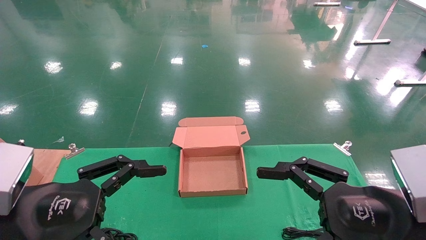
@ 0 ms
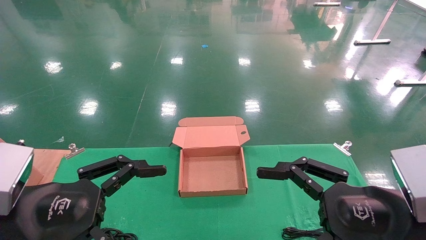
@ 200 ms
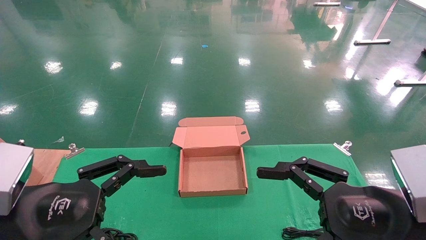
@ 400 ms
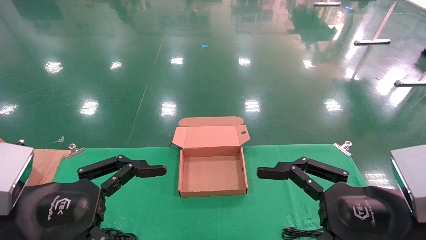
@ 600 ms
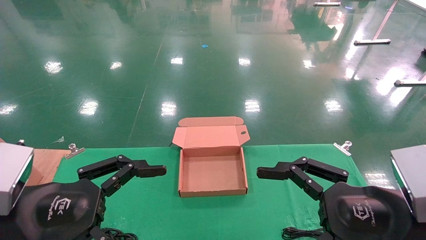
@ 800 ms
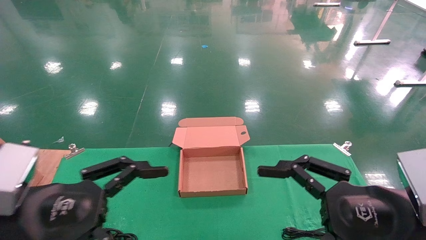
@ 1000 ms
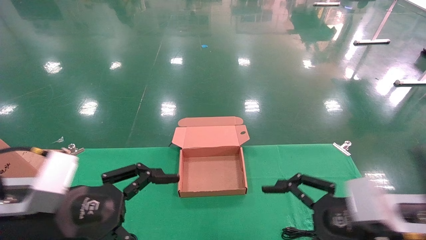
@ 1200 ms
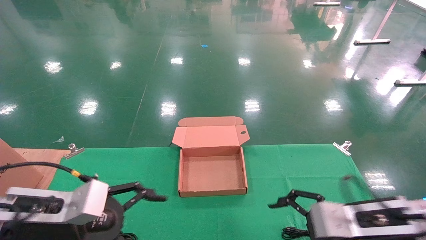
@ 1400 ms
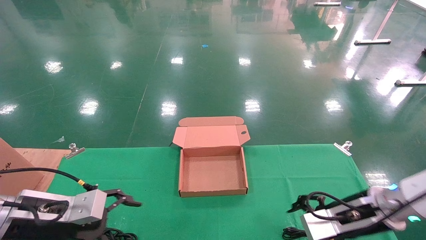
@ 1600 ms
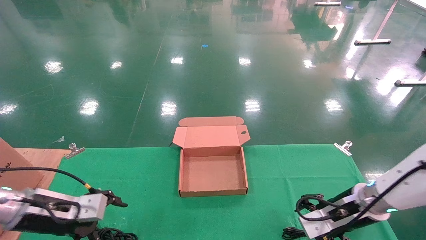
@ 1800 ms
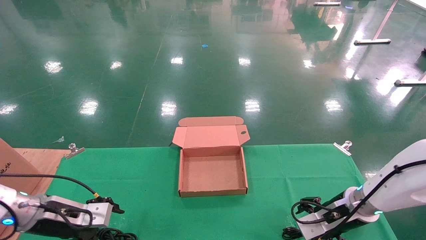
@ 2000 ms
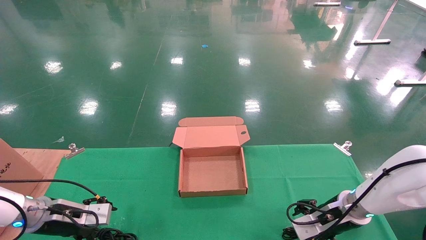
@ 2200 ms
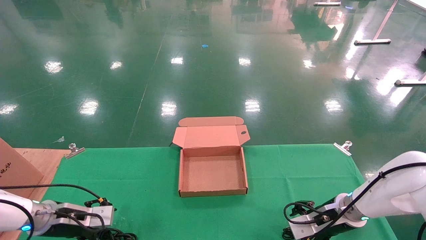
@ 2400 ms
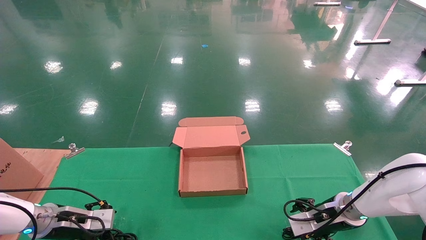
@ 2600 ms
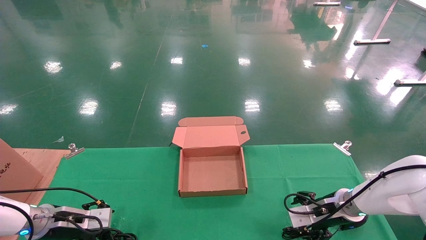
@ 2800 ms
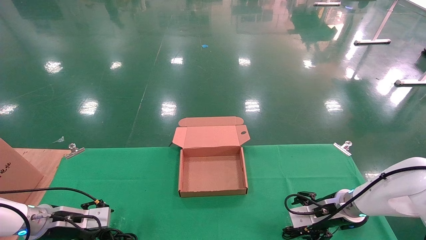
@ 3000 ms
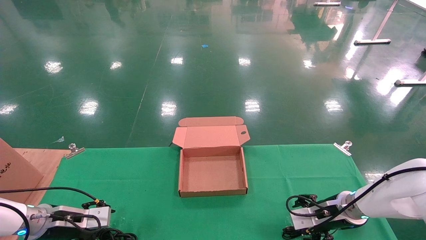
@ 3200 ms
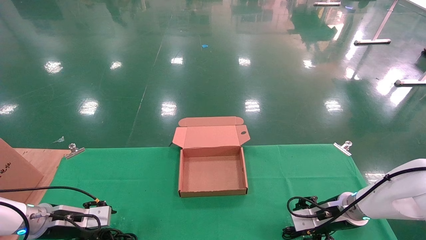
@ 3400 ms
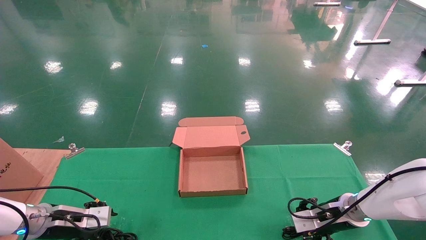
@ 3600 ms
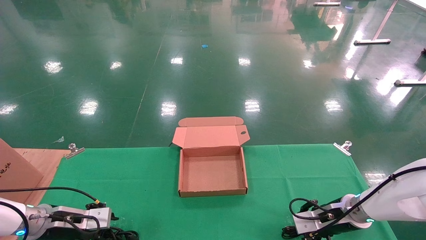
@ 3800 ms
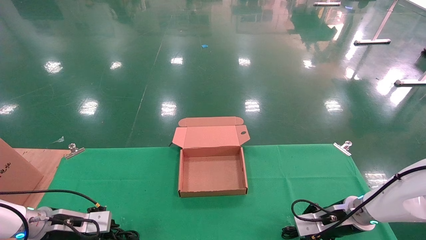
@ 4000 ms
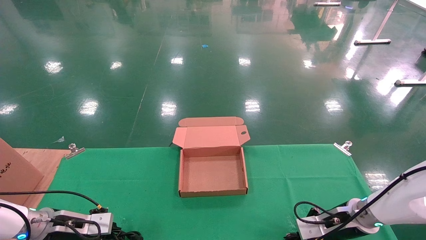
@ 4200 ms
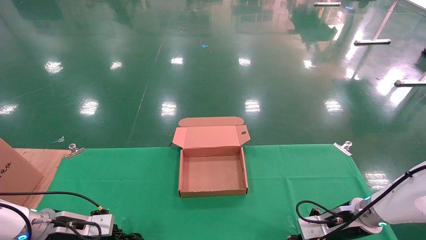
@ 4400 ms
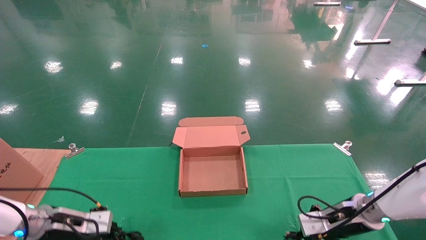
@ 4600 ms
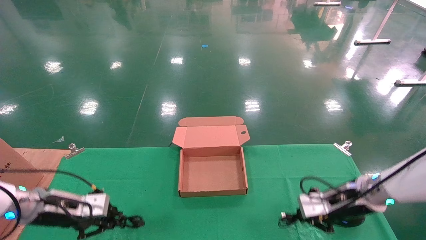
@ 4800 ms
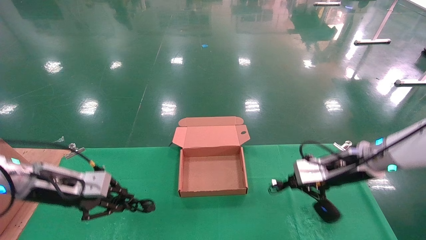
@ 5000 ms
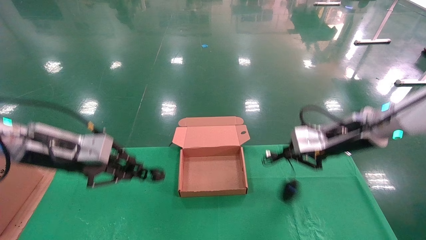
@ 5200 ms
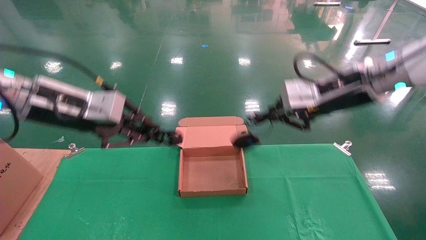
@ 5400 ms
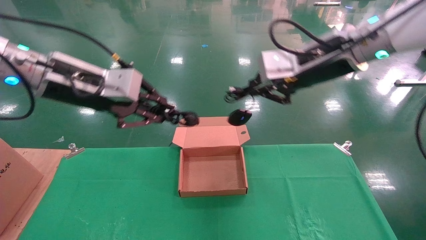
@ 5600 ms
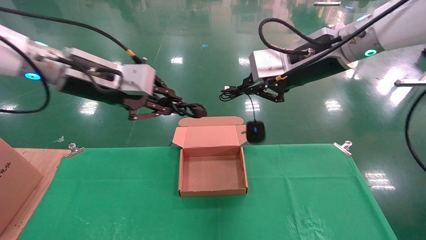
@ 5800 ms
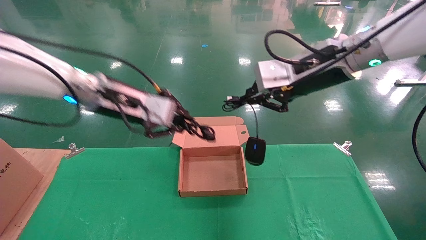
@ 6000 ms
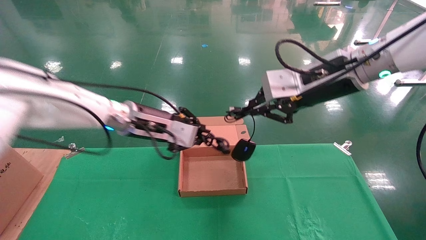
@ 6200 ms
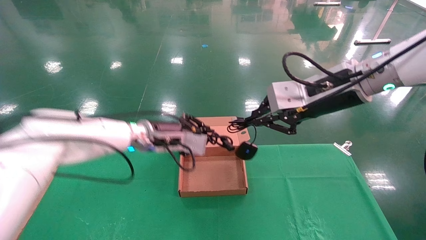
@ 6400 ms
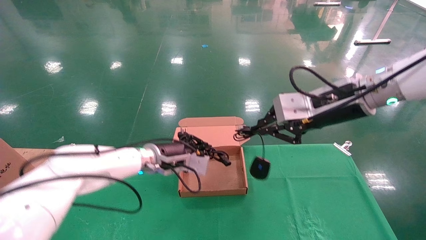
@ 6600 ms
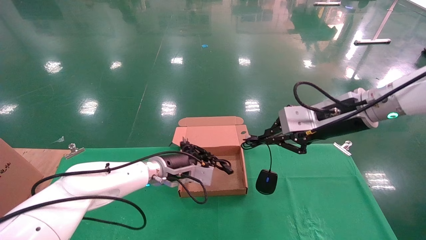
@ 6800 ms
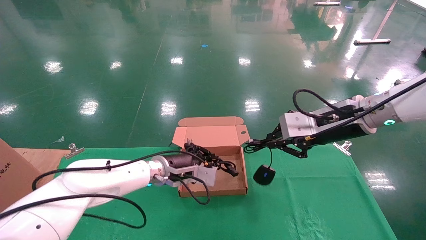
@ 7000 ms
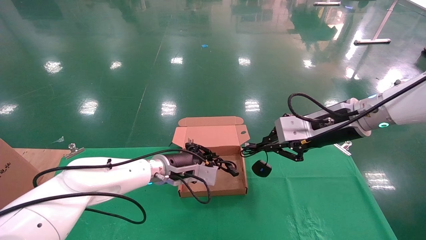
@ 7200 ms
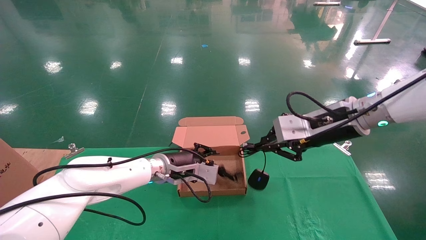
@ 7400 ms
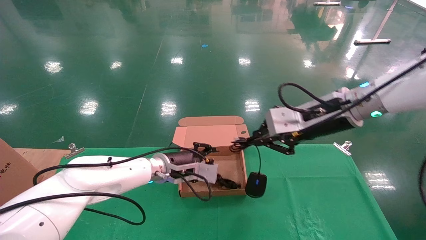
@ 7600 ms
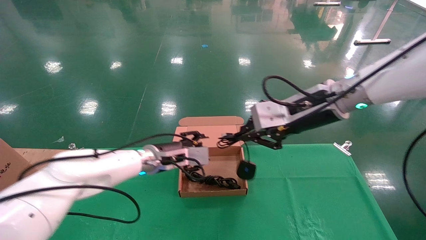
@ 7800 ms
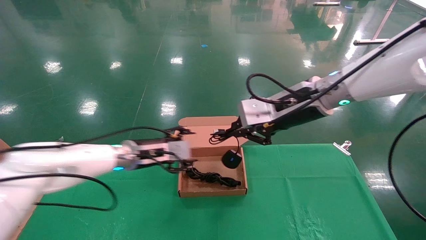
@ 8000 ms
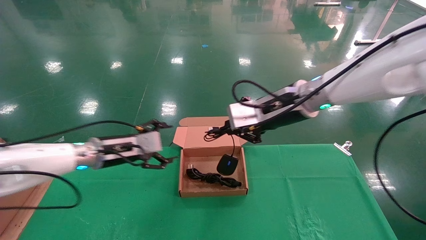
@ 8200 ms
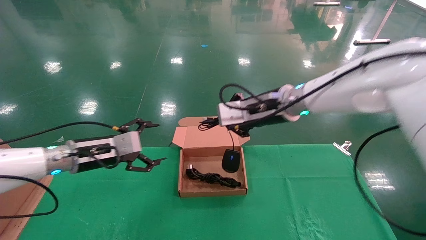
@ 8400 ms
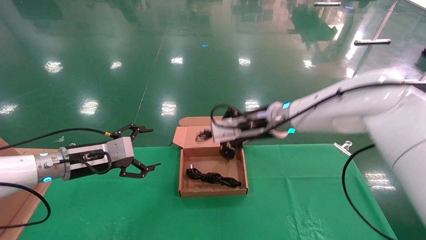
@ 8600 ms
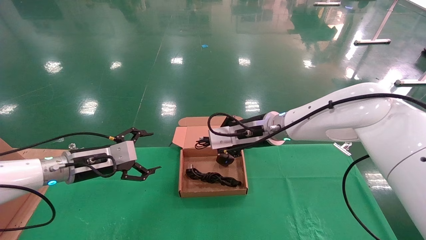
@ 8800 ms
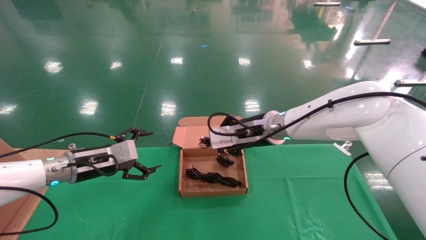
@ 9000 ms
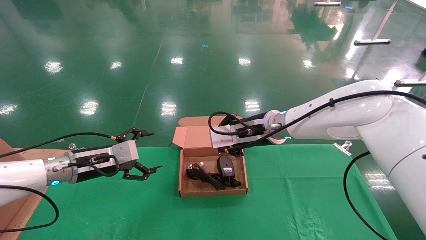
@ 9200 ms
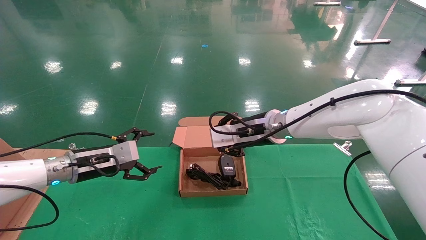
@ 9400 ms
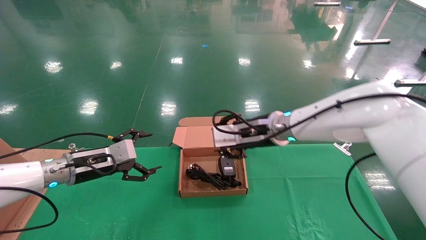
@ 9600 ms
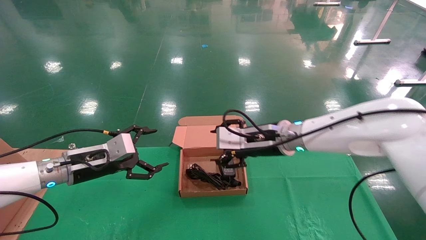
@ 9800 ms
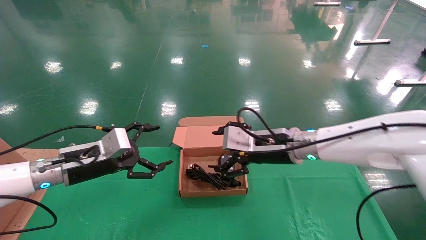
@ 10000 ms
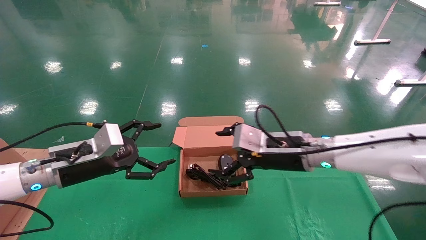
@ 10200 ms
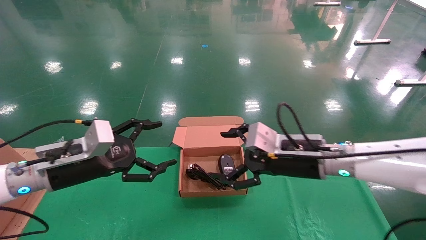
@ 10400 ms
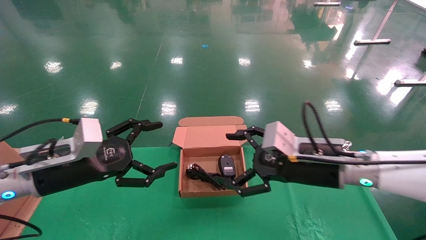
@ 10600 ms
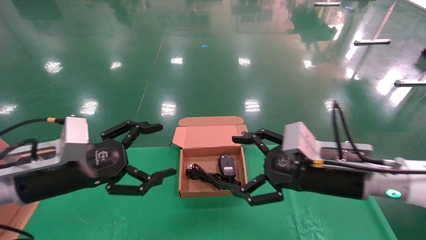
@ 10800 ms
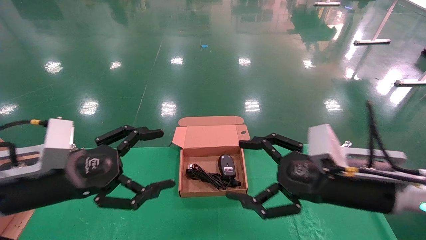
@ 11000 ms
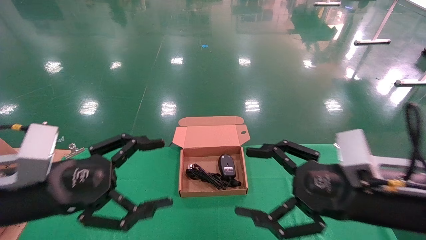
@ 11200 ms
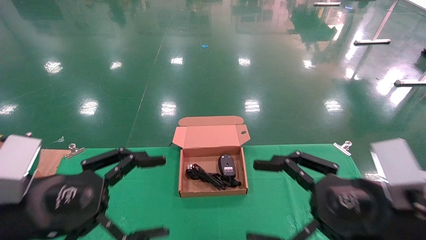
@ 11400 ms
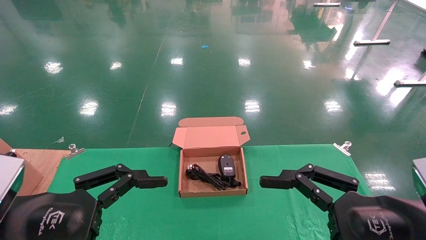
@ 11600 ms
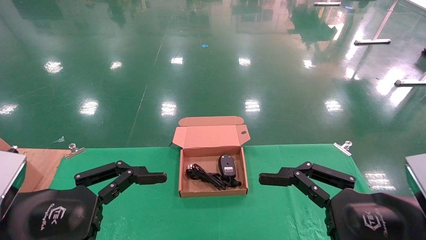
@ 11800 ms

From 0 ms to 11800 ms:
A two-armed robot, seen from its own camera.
Step, from 1600 ms to 4800 ms: Grab and lift both the mouse and power cord from the accessory packaging area at the same time.
Step, from 5000 ms to 10200 ms: Place the mouse and power cord into the box.
From 0 ms to 1400 ms: The grippers both shift forward and downward by roughly 10 cm.
From 1400 ms to 3000 ms: The left gripper goes roughly 20 cm forward, downward and to the left. The right gripper shifts about 15 cm forward and downward.
From 3000 ms to 4400 ms: The left gripper closes up. Meanwhile the right gripper closes its fingers.
From 4400 ms to 6000 ms: The left gripper heads upward and to the right, covering some 35 cm, while the right gripper moves upward, some 30 cm.
From 6000 ms to 7400 ms: The right gripper heads downward, covering about 10 cm; the left gripper travels downward, forward and to the right by roughly 20 cm.
From 7400 ms to 8800 ms: The right gripper shifts some 15 cm to the left and forward. Meanwhile the left gripper is displaced to the left by some 20 cm, and opens.
From 8800 ms to 10400 ms: The left gripper is displaced backward by about 10 cm. The right gripper travels backward and to the right by some 10 cm, and opens its fingers.
From 10400 ms to 11800 ms: The left gripper shifts approximately 15 cm backward, while the right gripper moves backward and to the right, approximately 20 cm.

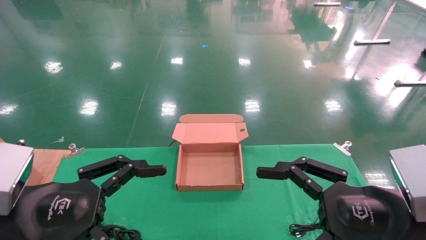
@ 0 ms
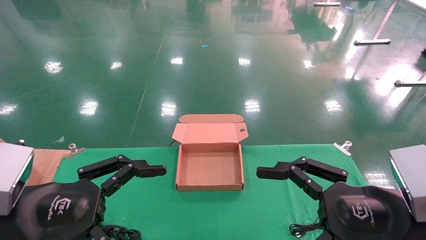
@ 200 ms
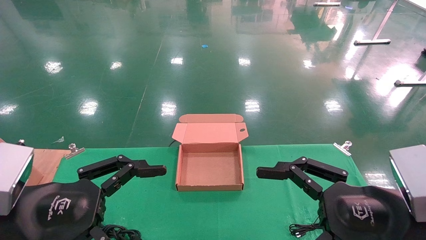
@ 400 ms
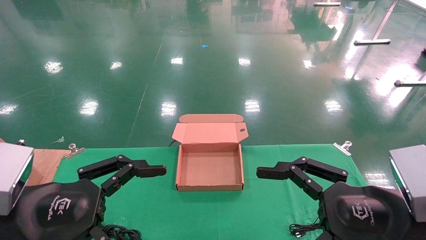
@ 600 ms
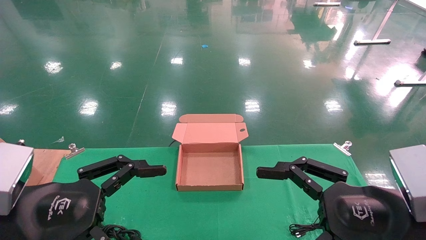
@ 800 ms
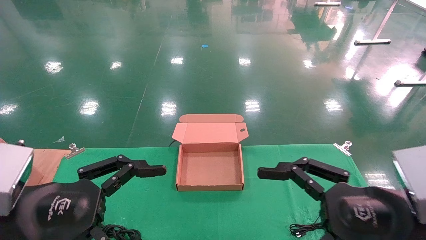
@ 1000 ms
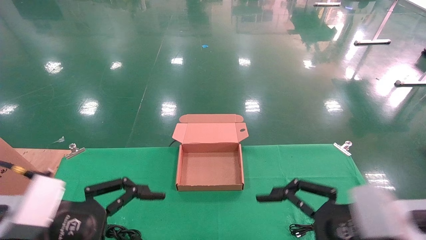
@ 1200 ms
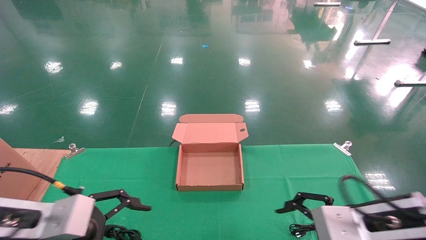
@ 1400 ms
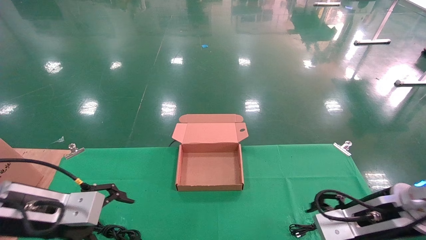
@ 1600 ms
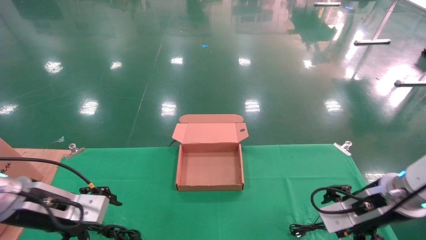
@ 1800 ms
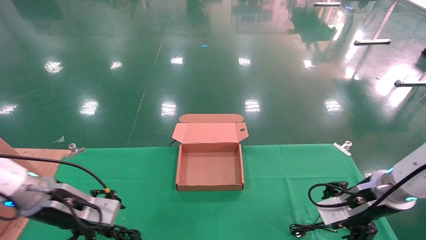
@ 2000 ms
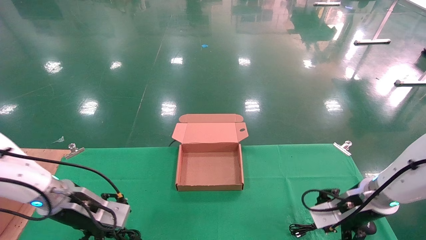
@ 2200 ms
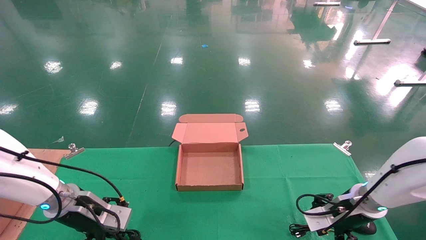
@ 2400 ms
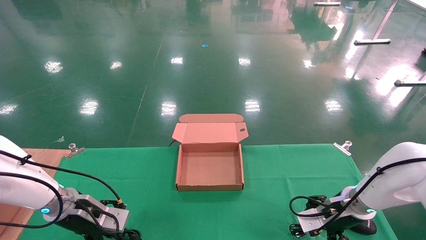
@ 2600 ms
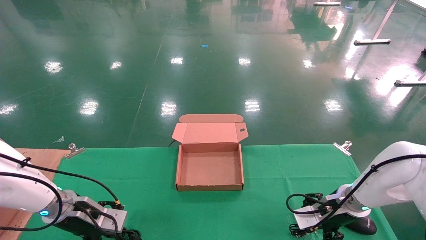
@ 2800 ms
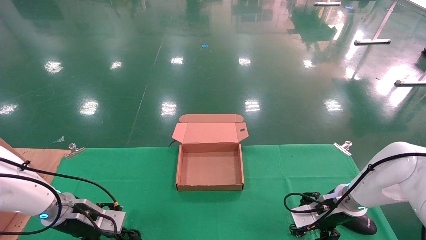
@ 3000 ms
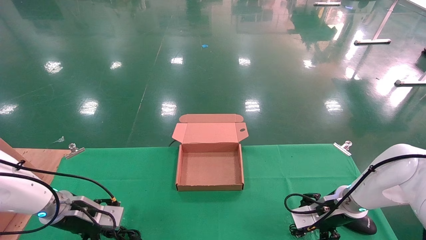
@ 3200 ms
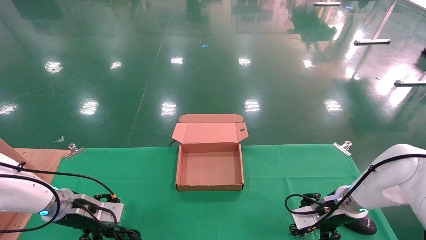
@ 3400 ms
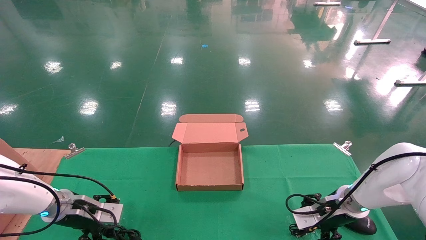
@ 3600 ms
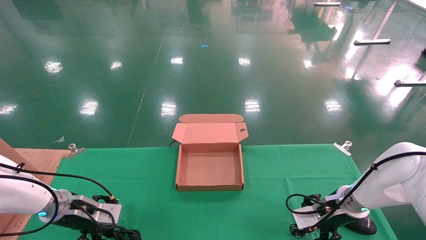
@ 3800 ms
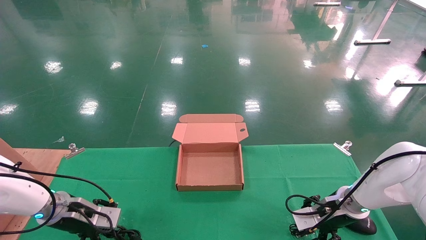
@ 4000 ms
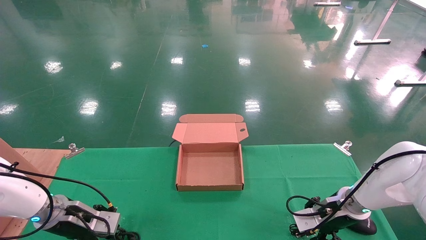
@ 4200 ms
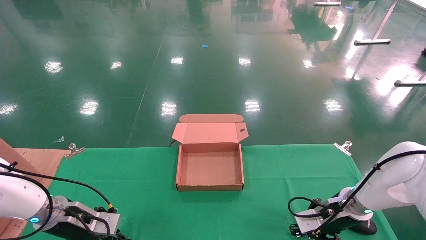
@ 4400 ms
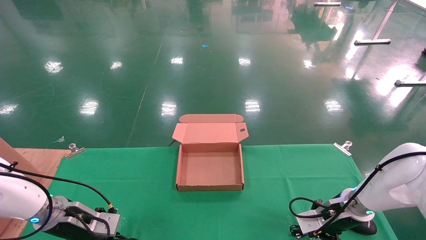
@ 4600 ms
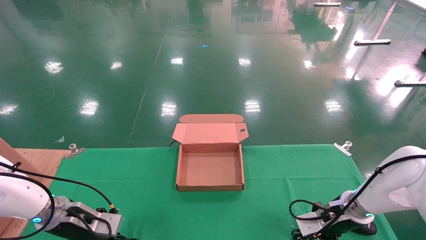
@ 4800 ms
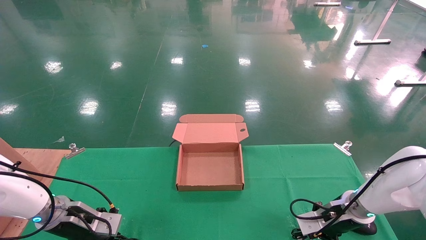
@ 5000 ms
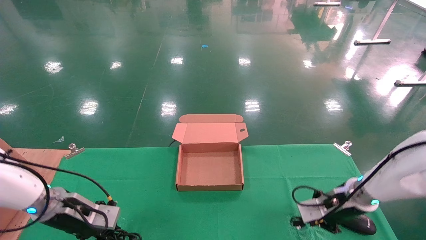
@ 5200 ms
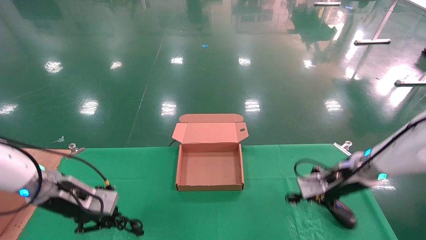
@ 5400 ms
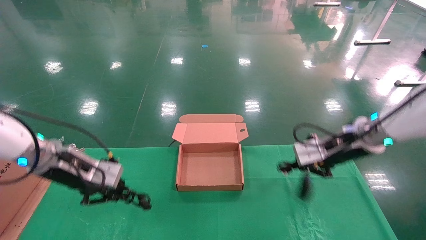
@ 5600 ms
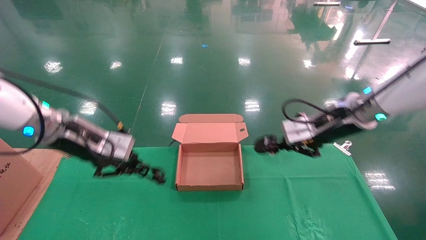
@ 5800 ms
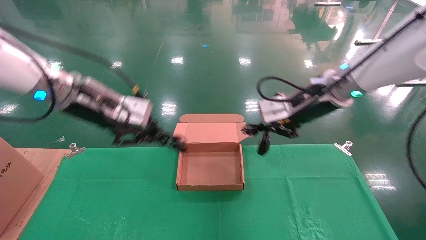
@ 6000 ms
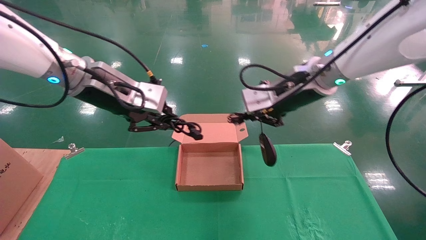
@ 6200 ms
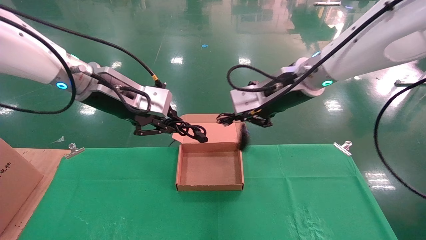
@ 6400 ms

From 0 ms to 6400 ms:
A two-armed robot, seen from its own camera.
Step, from 1800 ms to 5400 ms: Grab and lift both the mouse and power cord from the accessory packaging area at the same time.
From 0 ms to 1600 ms: The left gripper travels forward by some 10 cm, while the right gripper travels forward and downward by roughly 10 cm.
From 1600 ms to 3200 ms: The two grippers go about 15 cm forward and downward.
From 3200 ms to 4800 ms: The left gripper closes up; the right gripper closes.
From 4800 ms to 6400 ms: The left gripper shifts approximately 30 cm upward and to the right. Meanwhile the right gripper moves upward and to the left, roughly 35 cm.
